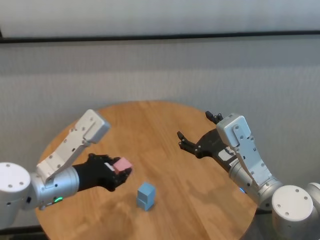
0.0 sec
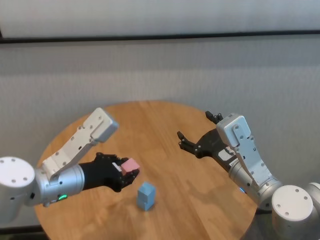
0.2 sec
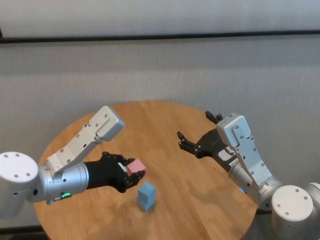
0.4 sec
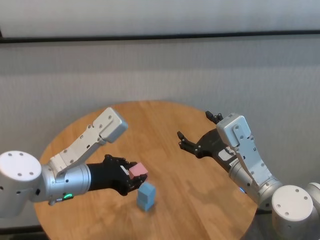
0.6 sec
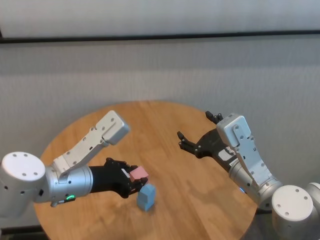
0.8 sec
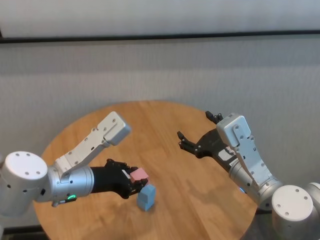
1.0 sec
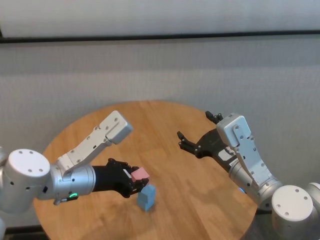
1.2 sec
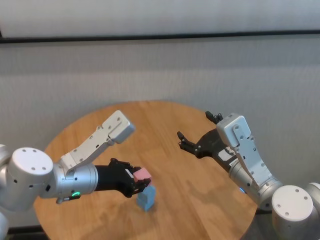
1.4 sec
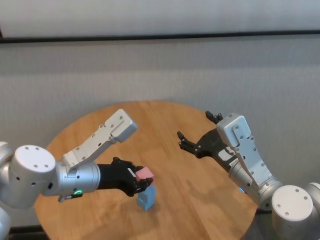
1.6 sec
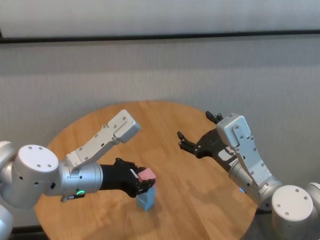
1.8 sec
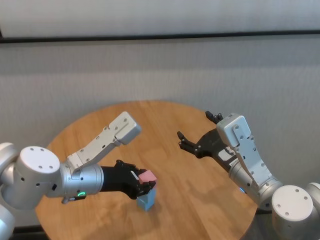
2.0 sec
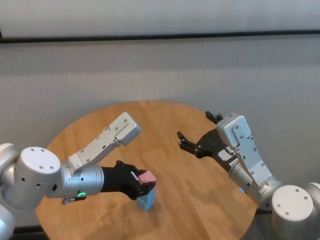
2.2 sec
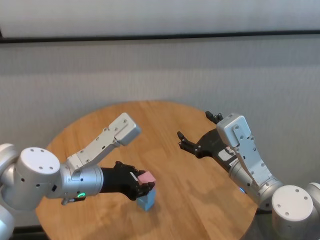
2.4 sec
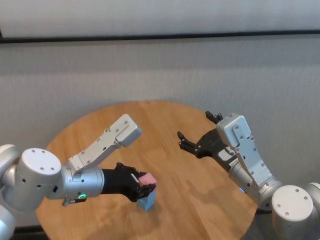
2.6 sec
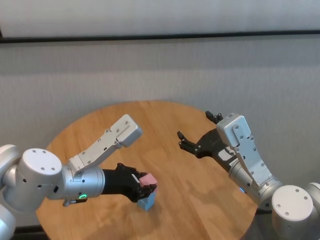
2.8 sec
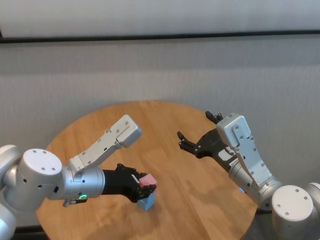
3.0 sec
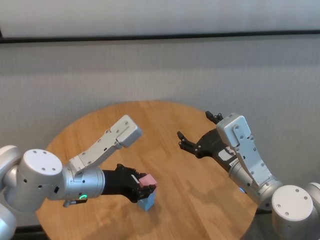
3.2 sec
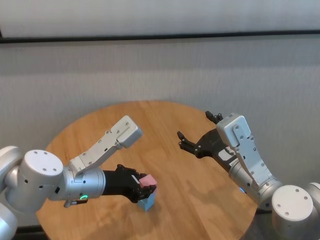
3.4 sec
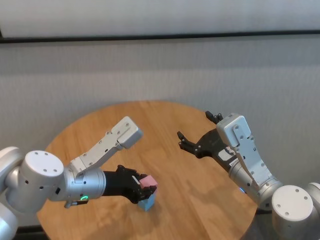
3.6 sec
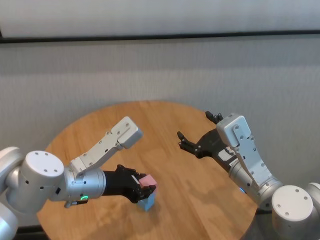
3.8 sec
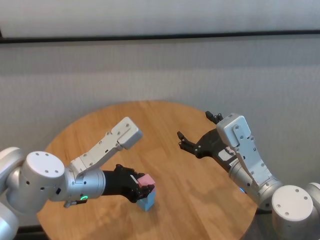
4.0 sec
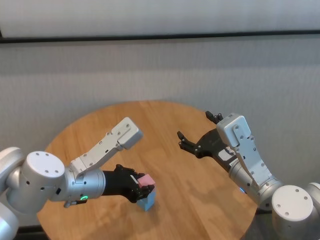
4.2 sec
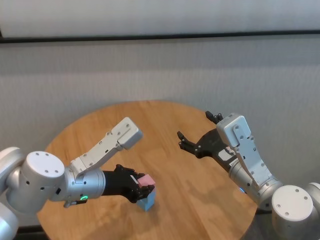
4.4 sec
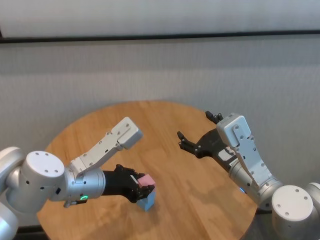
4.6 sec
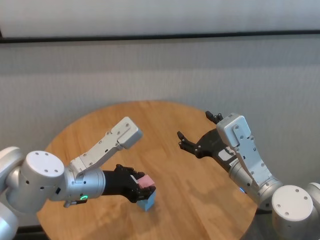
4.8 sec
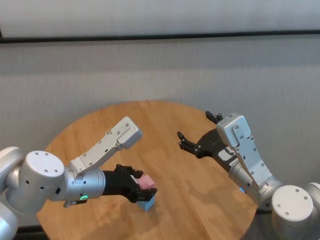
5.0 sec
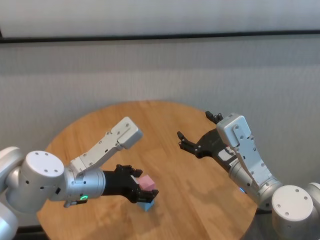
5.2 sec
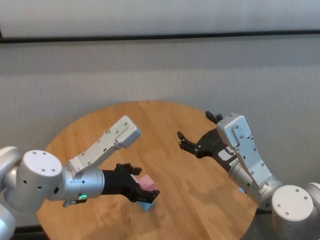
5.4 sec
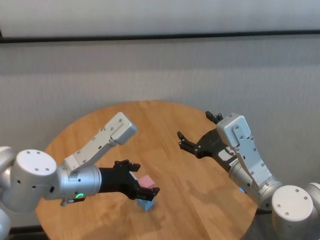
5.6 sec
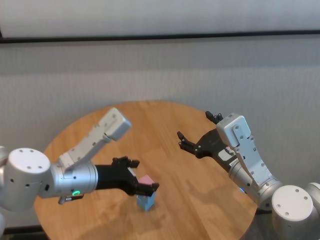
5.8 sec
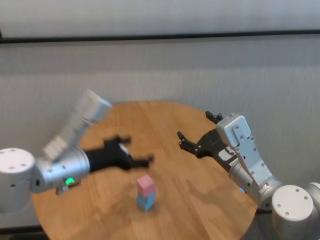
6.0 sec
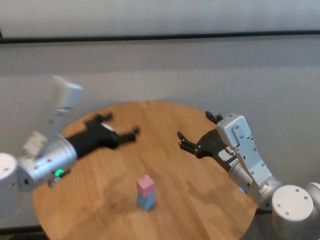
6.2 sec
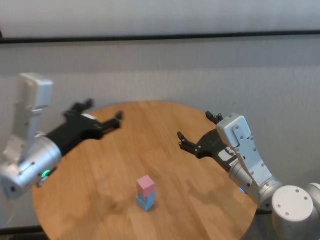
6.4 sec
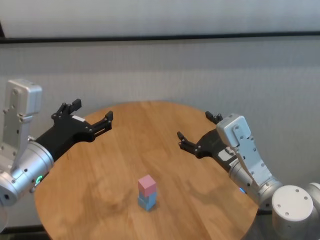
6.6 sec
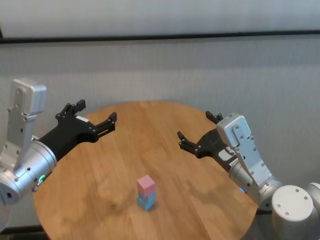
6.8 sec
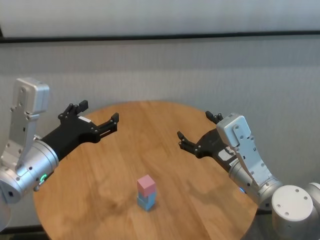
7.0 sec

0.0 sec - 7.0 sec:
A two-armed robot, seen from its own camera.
Task of the whole recording: stack building blocks on the table.
Step, 0.0 sec - 5.4 sec: Place the pink building block on the blue building blocks with left gripper.

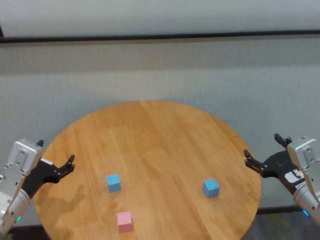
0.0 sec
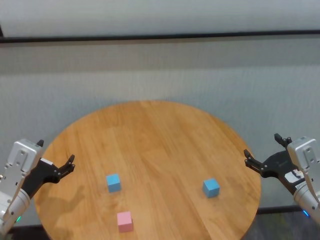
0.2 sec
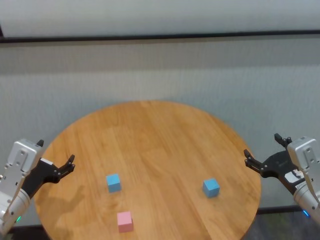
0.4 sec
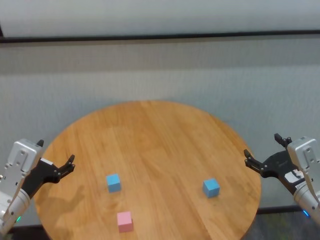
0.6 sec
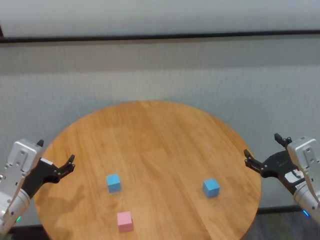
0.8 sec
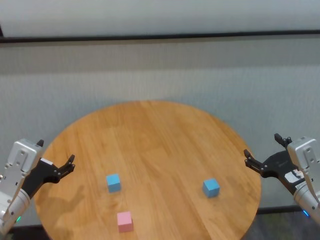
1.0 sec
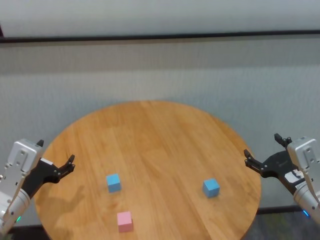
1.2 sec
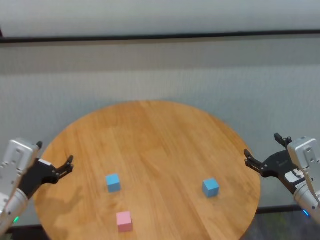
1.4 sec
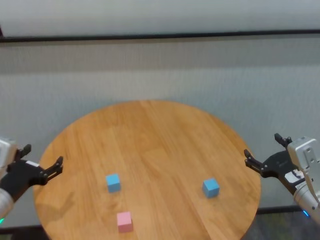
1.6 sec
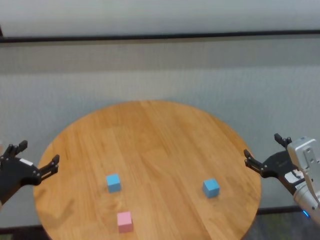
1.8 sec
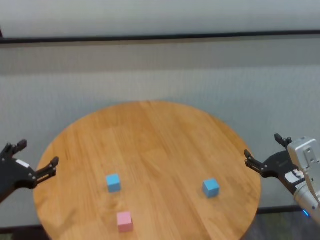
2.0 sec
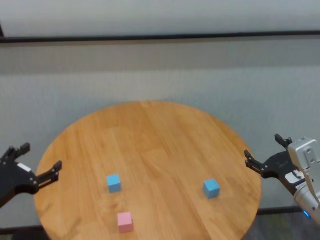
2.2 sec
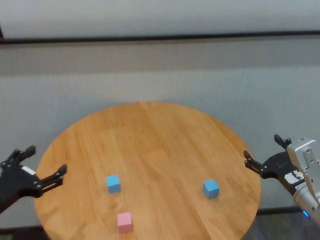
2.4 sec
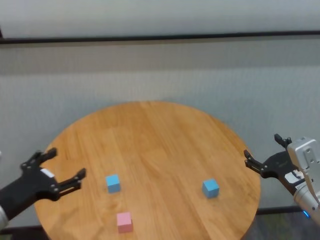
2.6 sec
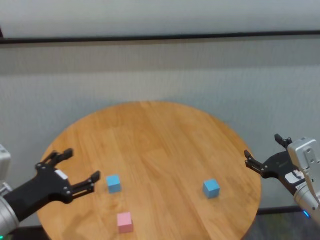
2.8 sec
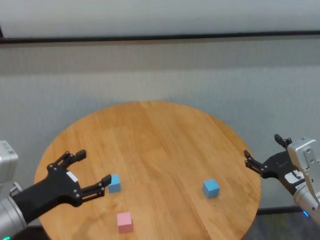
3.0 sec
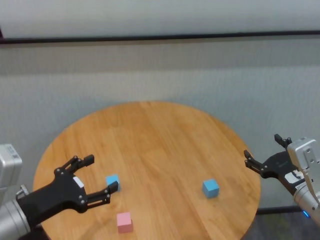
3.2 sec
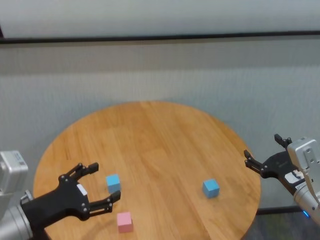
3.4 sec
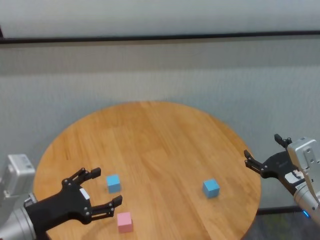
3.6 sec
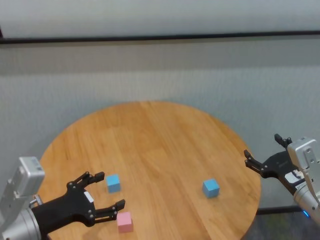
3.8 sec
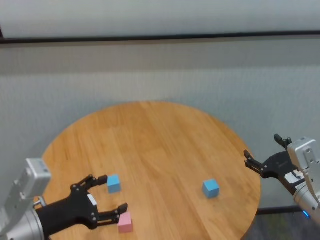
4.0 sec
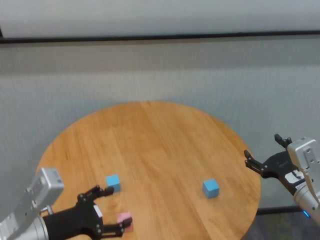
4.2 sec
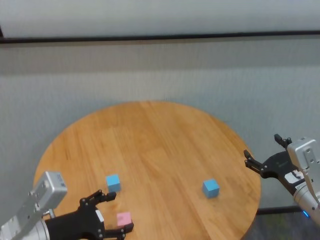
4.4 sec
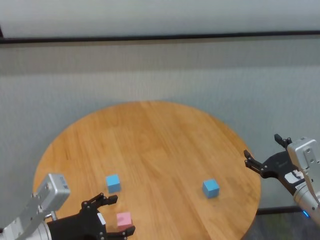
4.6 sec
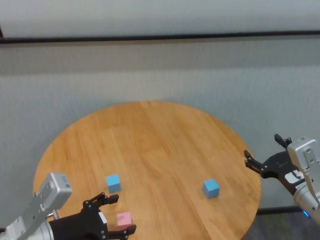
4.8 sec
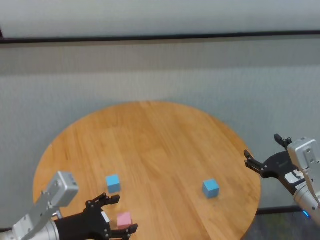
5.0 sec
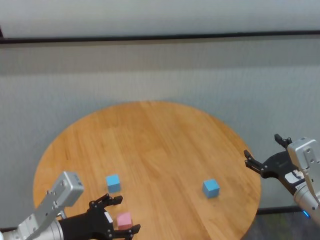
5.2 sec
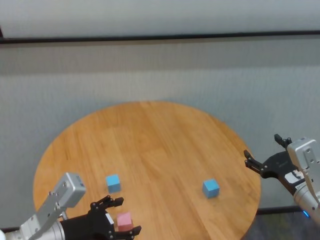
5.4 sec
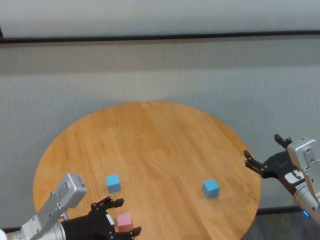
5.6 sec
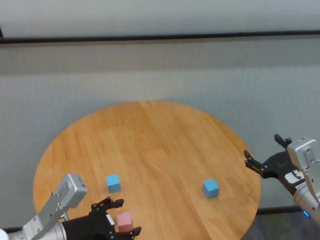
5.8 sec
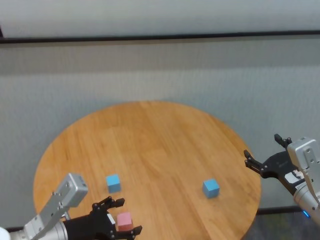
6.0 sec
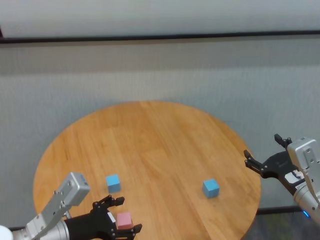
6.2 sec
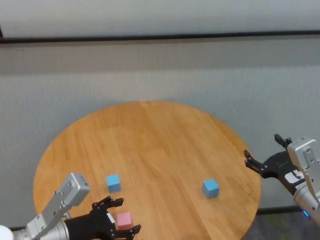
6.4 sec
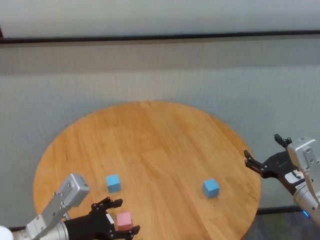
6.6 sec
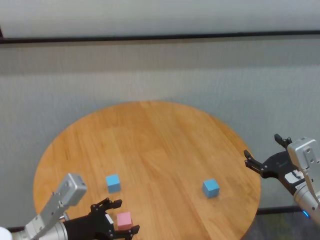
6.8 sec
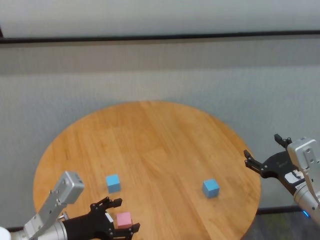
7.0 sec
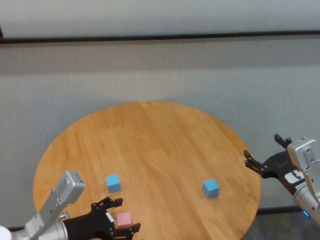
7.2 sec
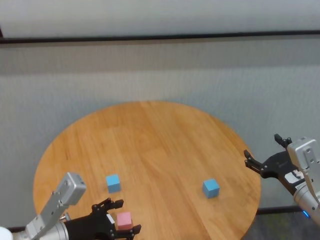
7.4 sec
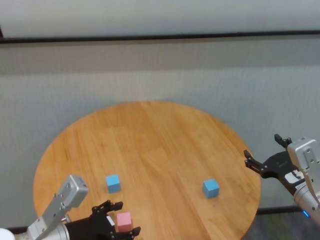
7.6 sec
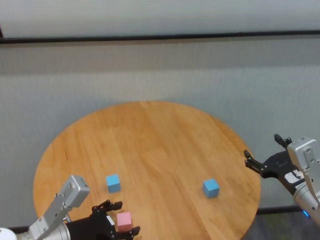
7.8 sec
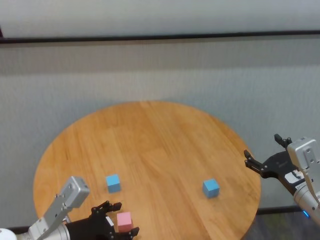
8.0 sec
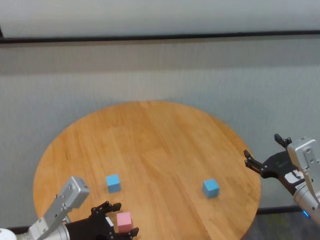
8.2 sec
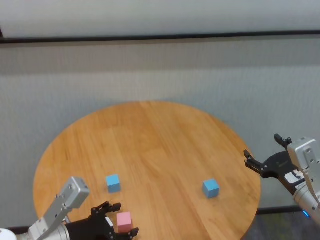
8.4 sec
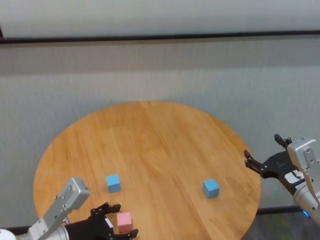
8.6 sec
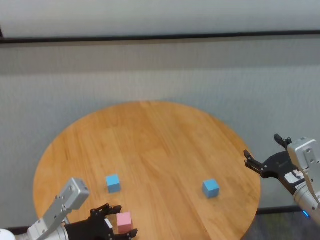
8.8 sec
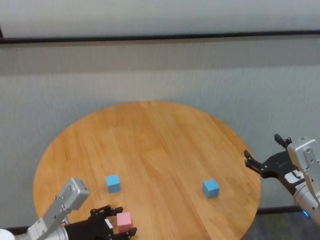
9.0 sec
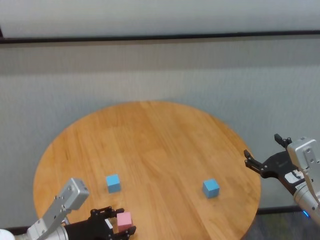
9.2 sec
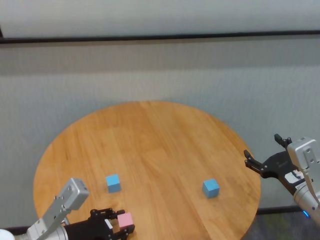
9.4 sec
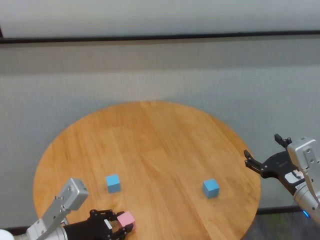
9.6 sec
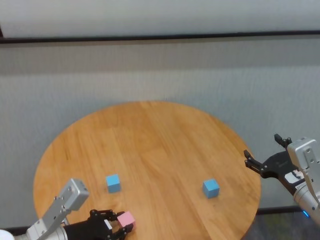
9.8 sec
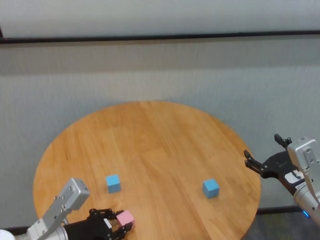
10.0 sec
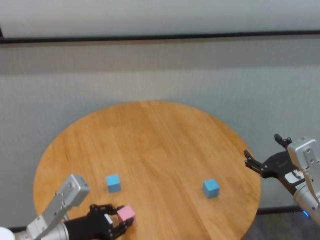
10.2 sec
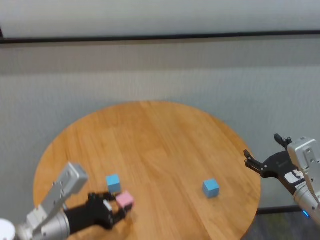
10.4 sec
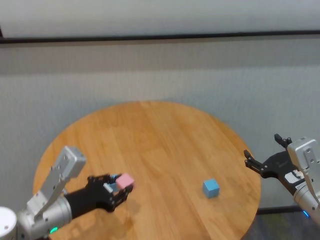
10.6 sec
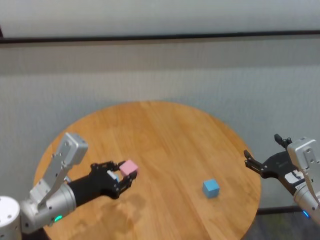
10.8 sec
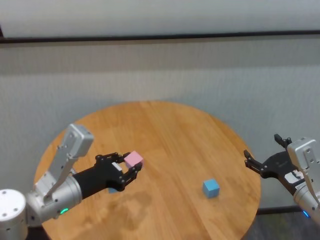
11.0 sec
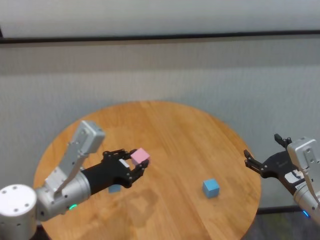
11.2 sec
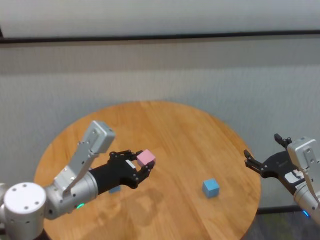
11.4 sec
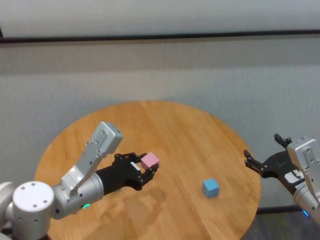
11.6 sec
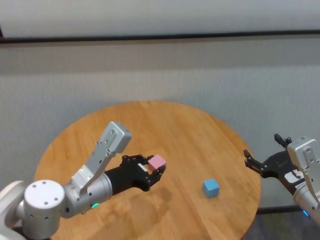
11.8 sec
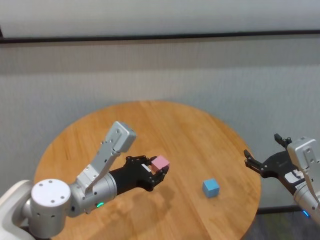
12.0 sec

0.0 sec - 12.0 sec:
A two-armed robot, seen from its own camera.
Task of the whole recording: stack building blocks on the table.
Step, 0.0 sec - 9.4 sec: Grasp the pink building block with left gripper.

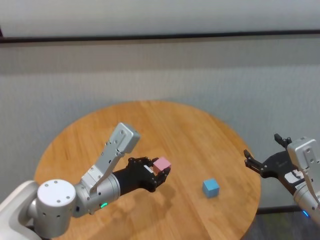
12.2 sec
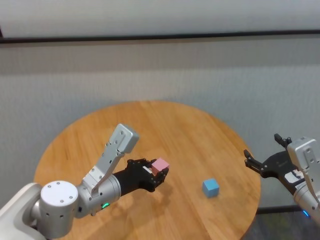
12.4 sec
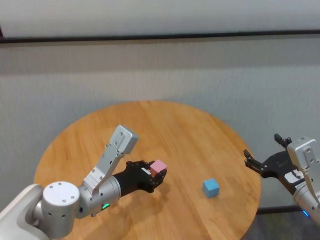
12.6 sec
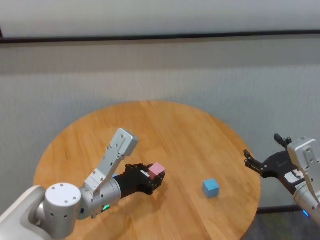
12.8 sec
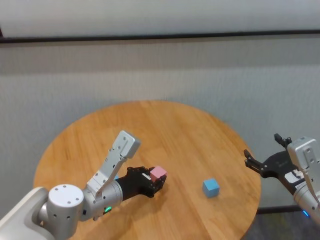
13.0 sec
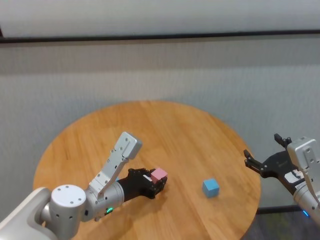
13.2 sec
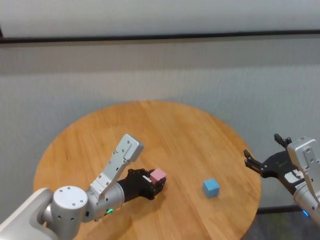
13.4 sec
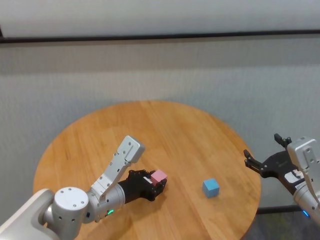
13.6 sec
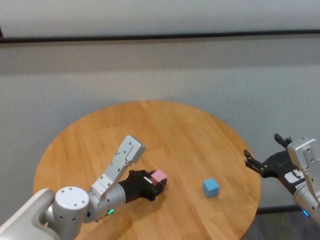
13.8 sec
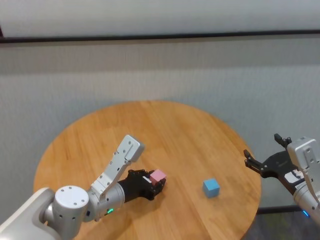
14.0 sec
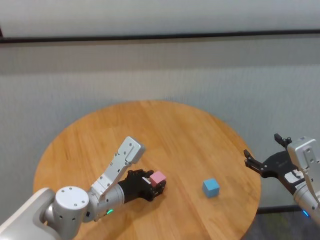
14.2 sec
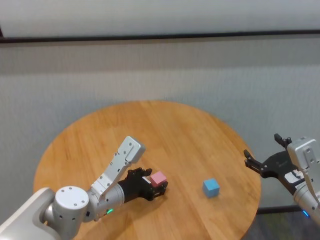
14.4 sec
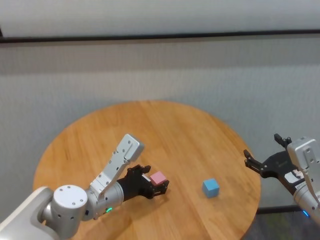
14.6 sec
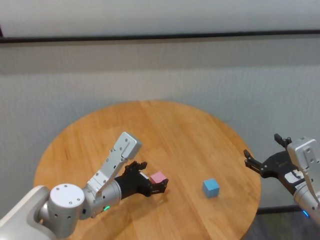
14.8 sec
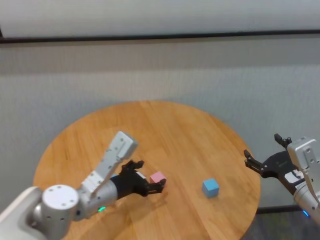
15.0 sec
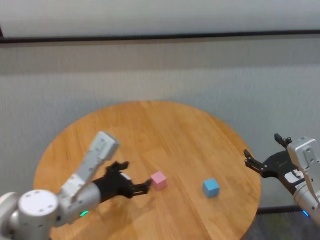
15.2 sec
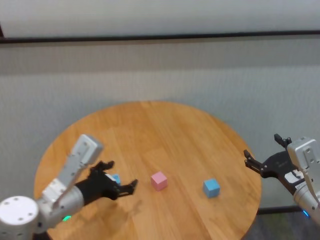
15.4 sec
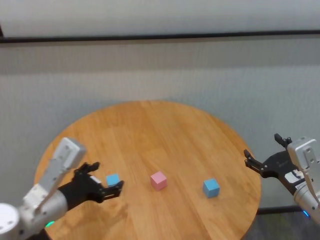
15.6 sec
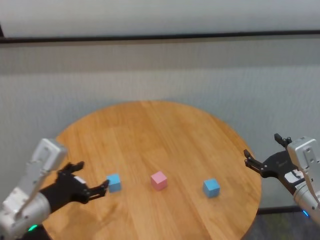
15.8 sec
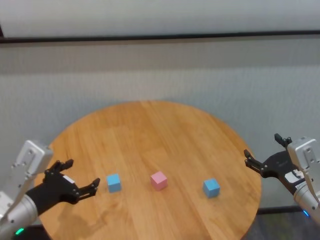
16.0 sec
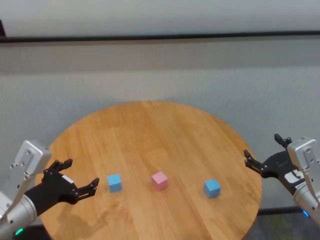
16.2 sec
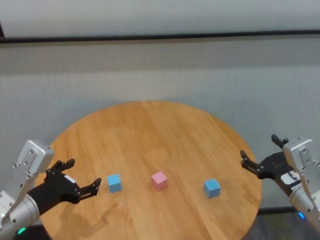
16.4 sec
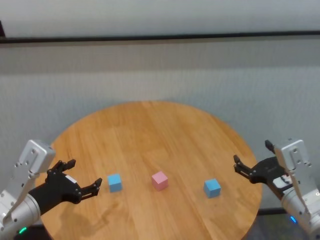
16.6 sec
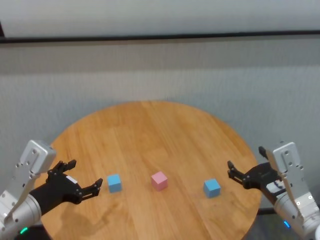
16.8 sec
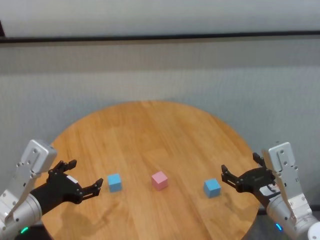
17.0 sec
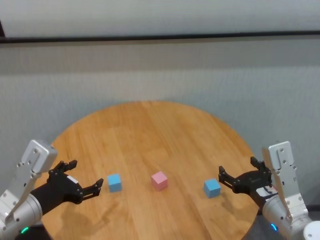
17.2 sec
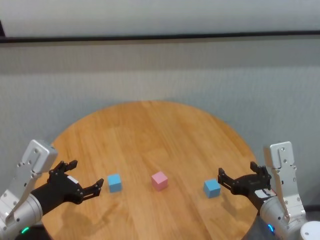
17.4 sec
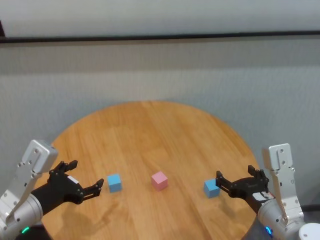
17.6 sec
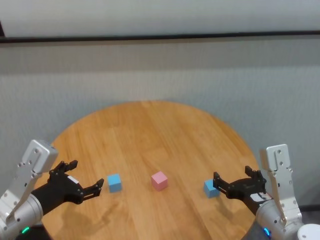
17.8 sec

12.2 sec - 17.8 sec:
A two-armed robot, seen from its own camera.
Task of the whole recording: stack building blocks on the table.
Step, 12.2 sec - 14.4 sec: Place the pink building block in the center of table with left gripper.
